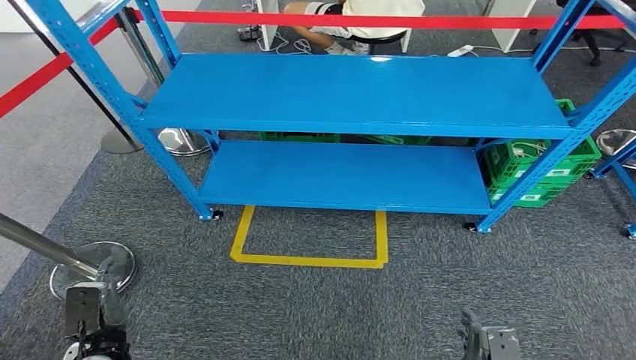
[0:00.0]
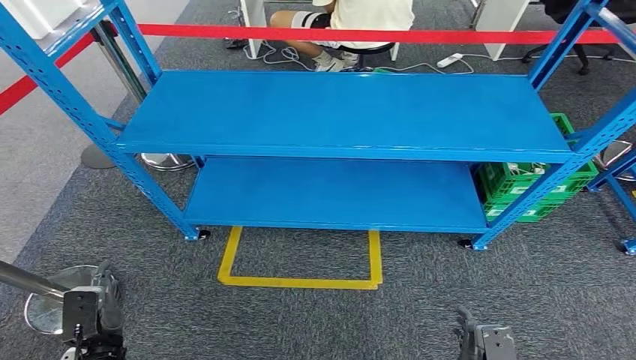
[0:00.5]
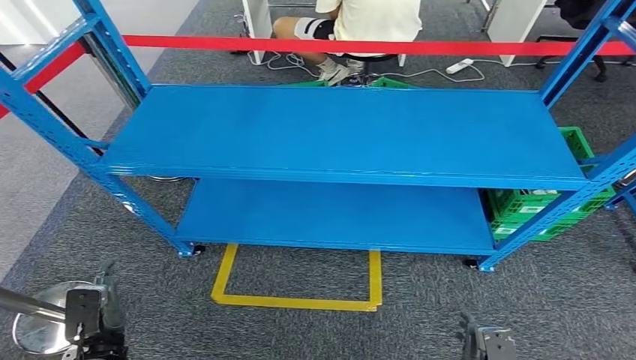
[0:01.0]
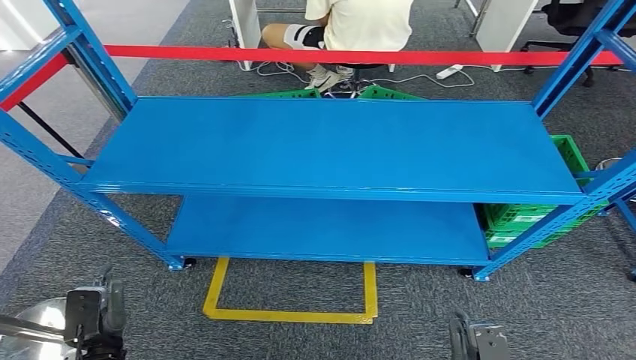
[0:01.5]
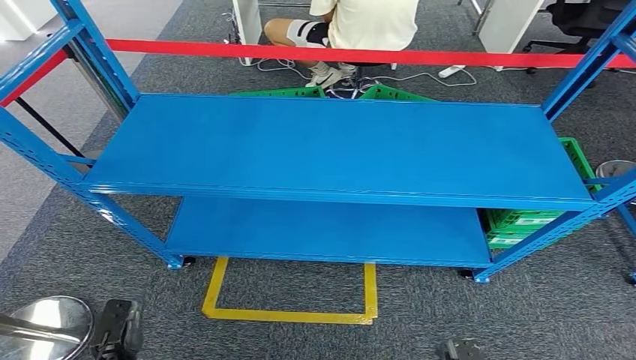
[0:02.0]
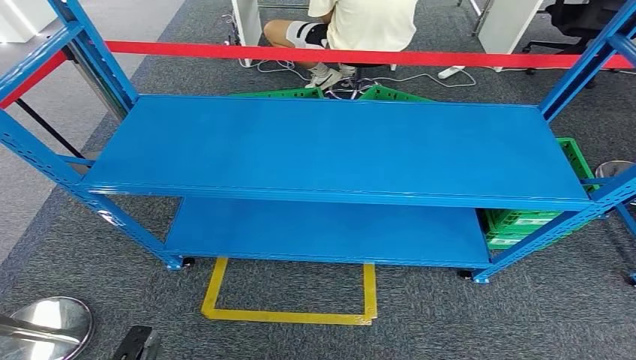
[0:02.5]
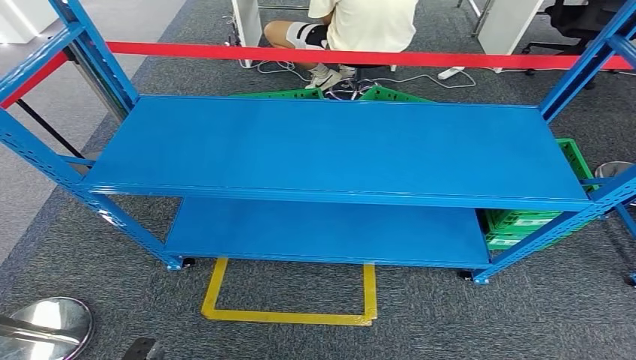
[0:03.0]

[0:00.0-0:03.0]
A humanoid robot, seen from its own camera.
Step, 0:00.0 to 0:03.0: Return to the initial position at the workbench.
0:01.5 to 0:03.0: The left hand is displaced backward and downward by about 15 cm; the right hand moves downward and backward, some 15 cm.
